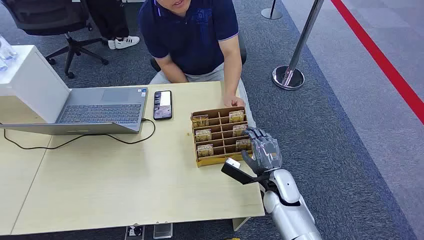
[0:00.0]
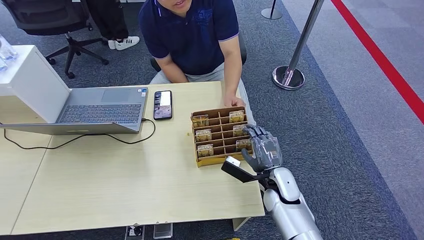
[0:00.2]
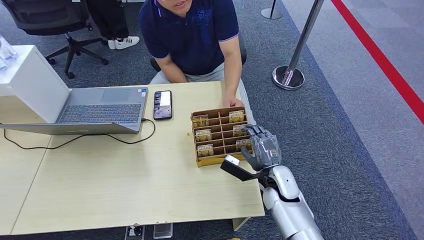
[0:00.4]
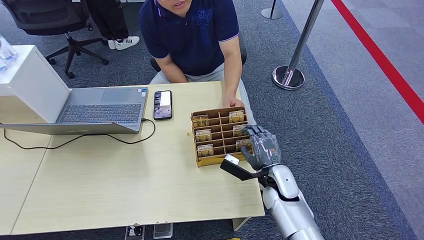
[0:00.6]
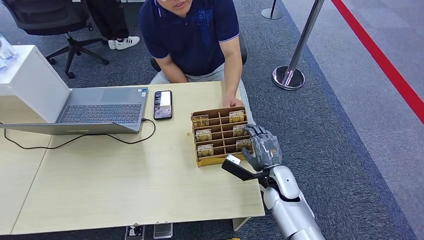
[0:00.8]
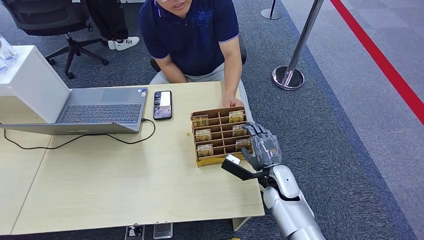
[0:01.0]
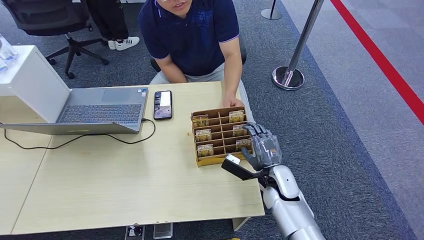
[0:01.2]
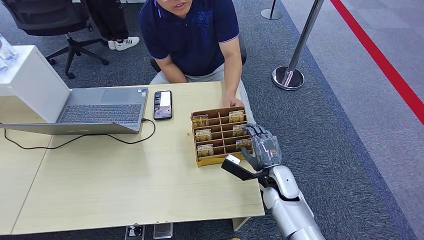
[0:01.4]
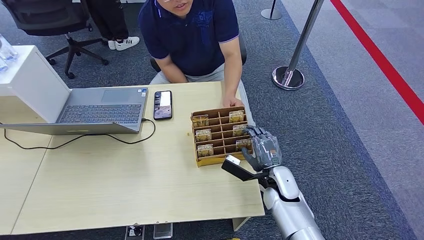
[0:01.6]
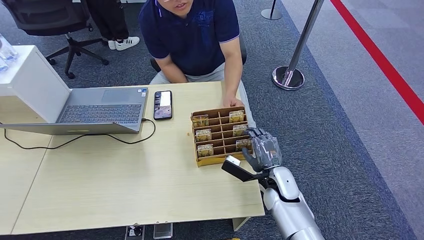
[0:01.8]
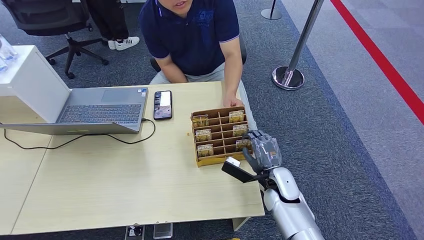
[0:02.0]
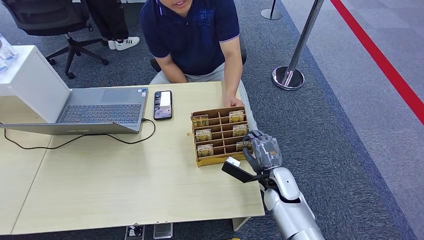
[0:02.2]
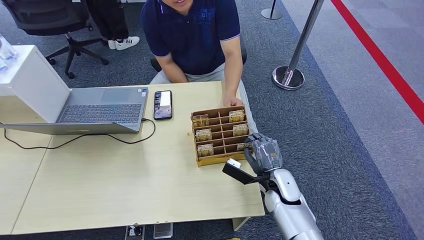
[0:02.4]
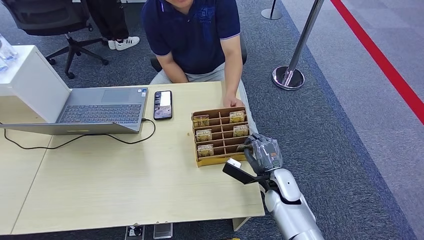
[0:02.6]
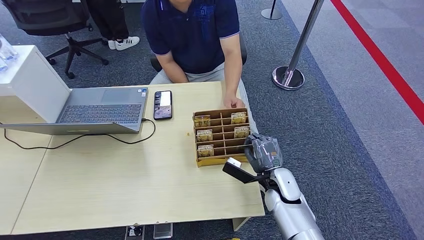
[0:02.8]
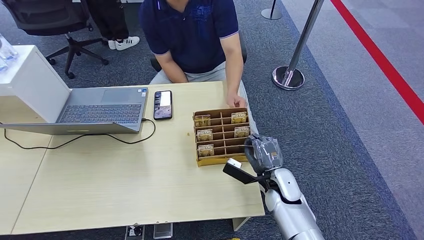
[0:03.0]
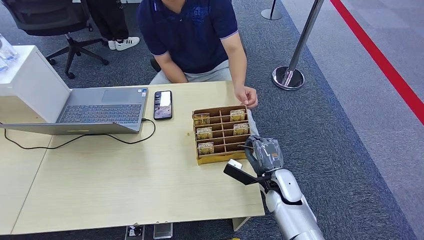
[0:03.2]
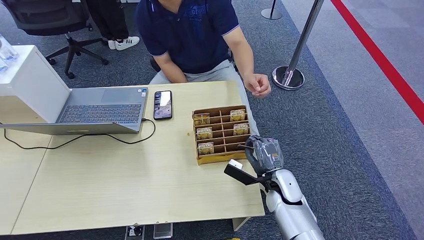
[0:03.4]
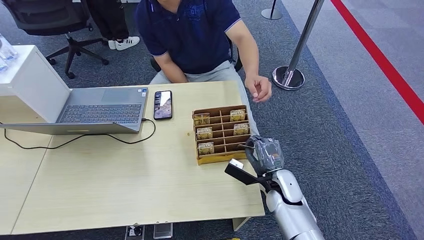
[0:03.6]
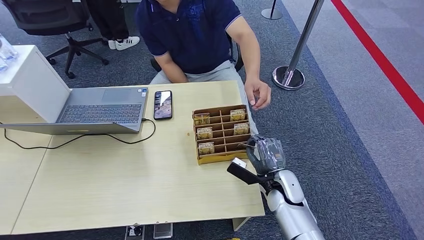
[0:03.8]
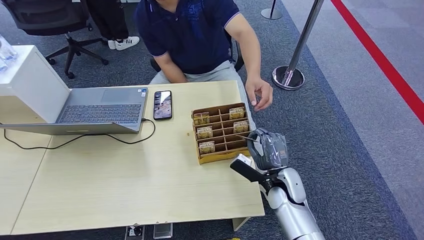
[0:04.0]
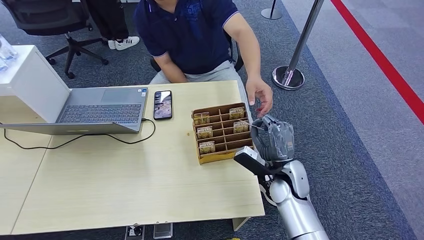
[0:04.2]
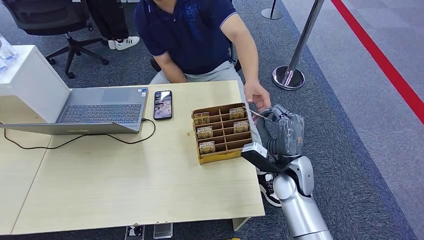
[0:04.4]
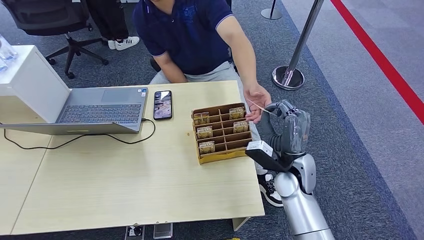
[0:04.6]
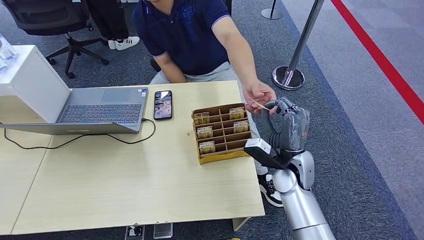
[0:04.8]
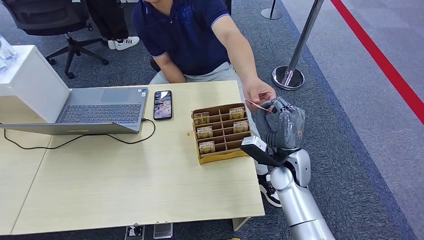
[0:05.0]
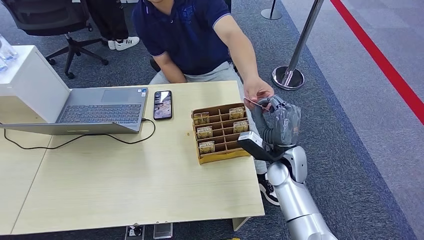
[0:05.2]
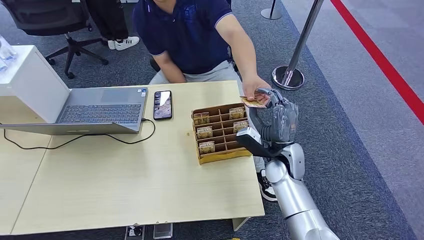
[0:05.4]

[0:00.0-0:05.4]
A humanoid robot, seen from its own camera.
Step, 0:00.0 to 0:04.2: Pick up the key card from the card box.
Step, 0:04.4 to 0:05.2: Hand the key card to the target.
0:01.4 to 0:04.0: The hands stay close to where they were, moving slightly.
0:04.0 to 0:05.4: The right hand shifts some 5 cm upward.

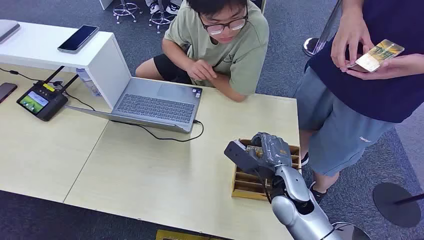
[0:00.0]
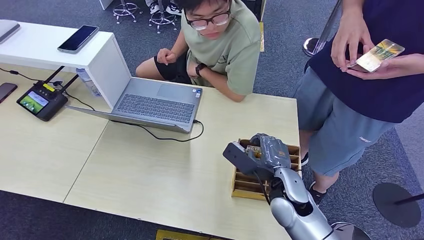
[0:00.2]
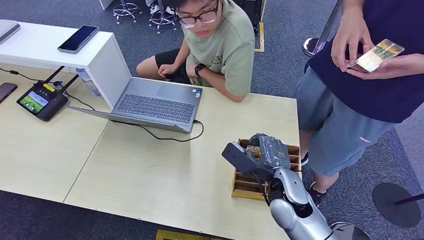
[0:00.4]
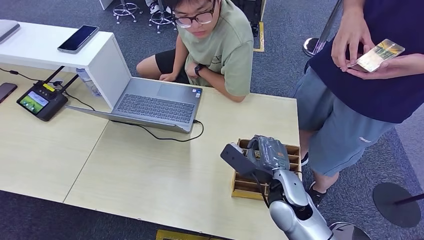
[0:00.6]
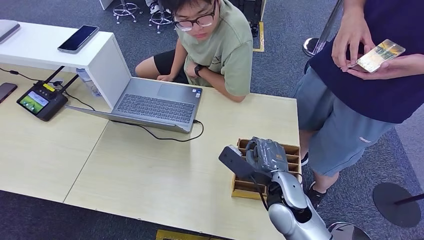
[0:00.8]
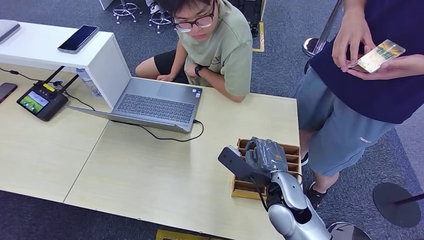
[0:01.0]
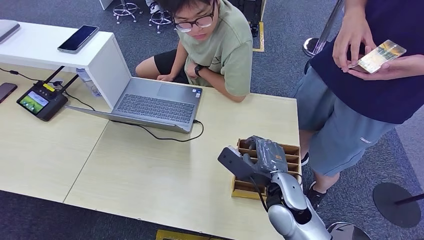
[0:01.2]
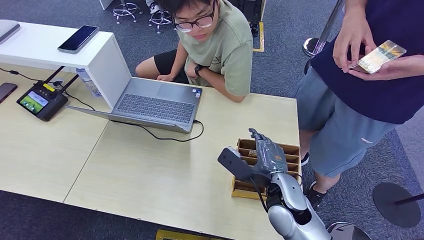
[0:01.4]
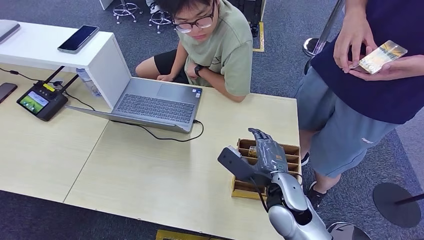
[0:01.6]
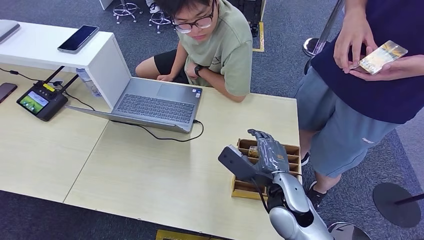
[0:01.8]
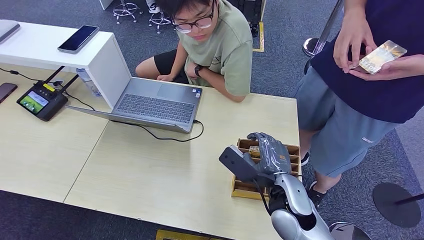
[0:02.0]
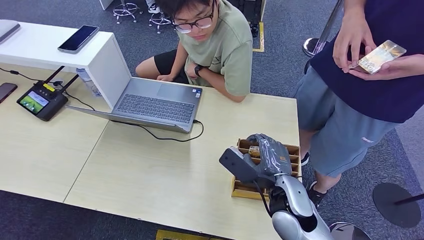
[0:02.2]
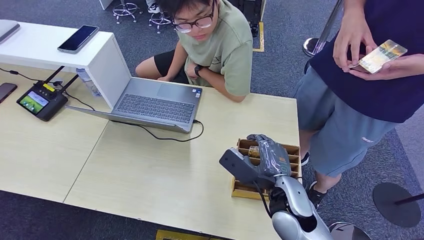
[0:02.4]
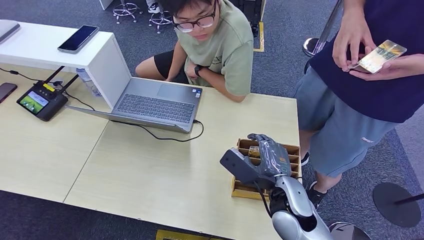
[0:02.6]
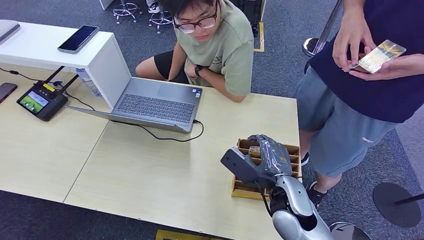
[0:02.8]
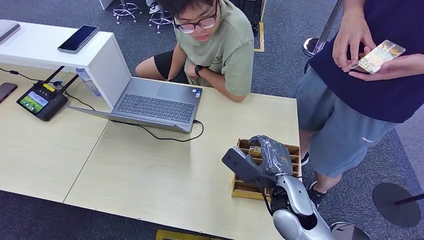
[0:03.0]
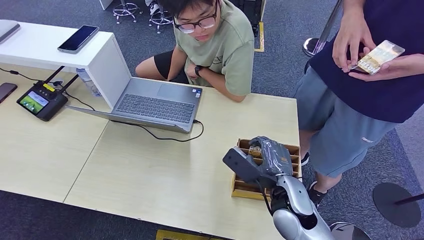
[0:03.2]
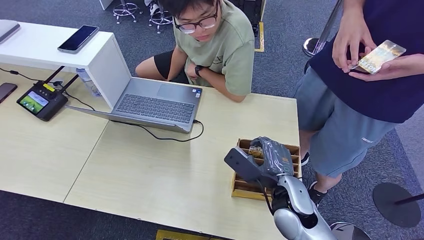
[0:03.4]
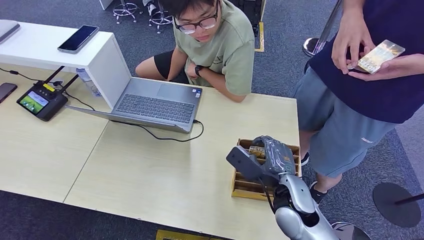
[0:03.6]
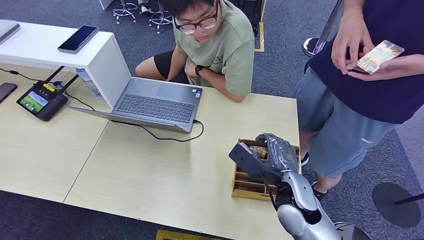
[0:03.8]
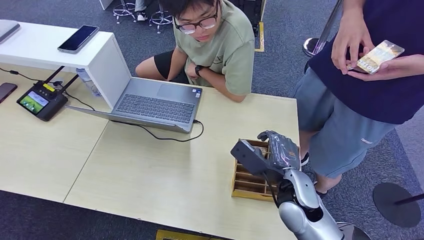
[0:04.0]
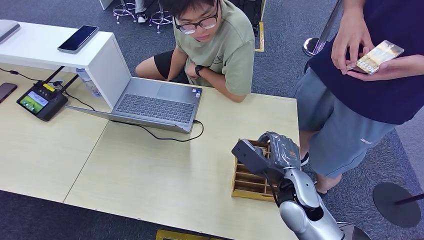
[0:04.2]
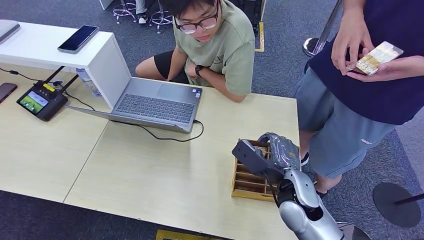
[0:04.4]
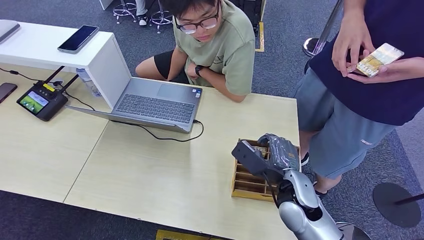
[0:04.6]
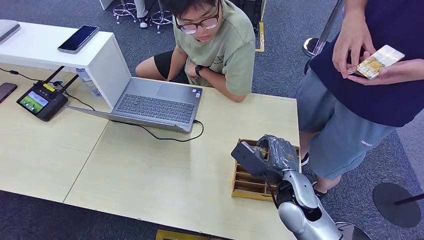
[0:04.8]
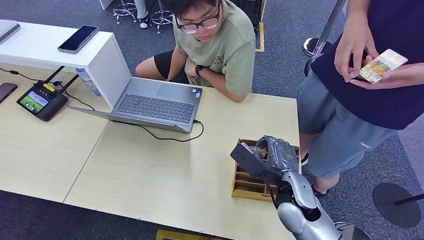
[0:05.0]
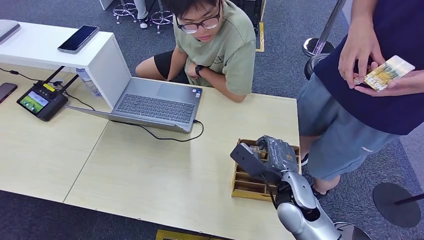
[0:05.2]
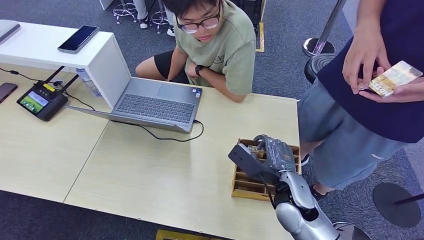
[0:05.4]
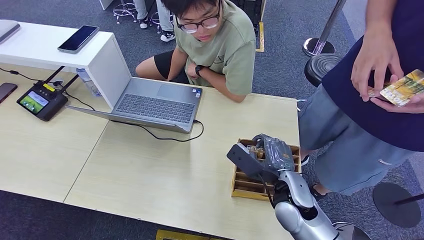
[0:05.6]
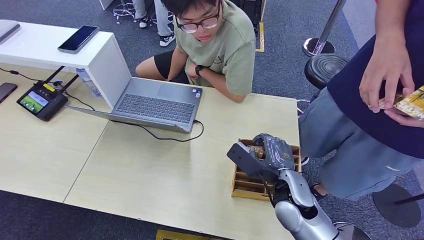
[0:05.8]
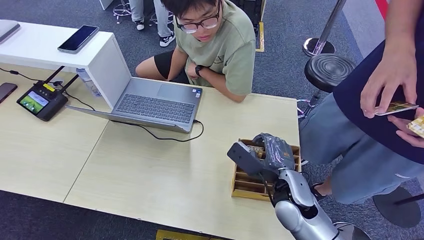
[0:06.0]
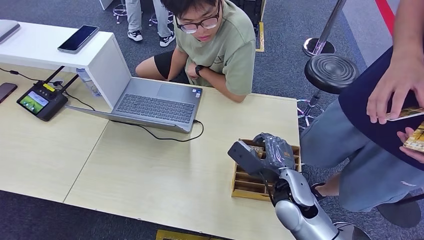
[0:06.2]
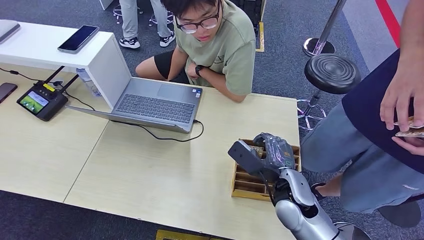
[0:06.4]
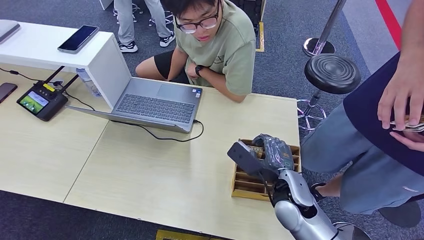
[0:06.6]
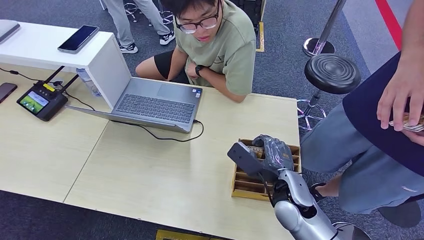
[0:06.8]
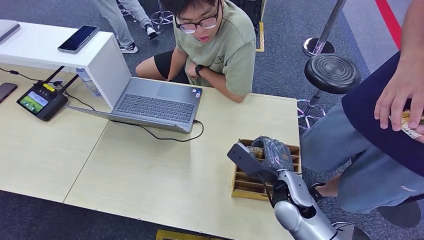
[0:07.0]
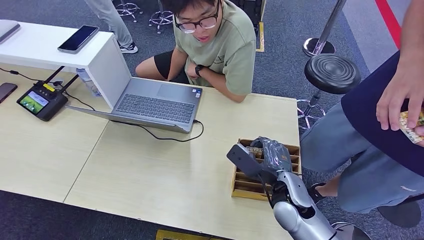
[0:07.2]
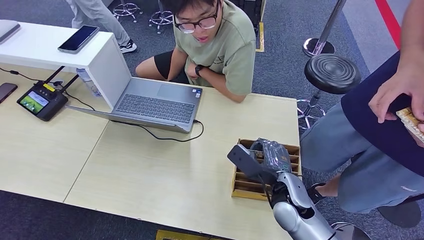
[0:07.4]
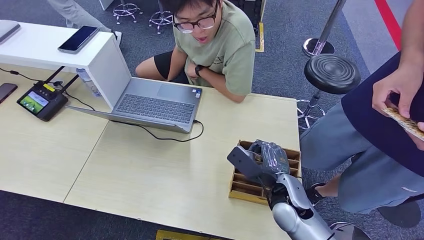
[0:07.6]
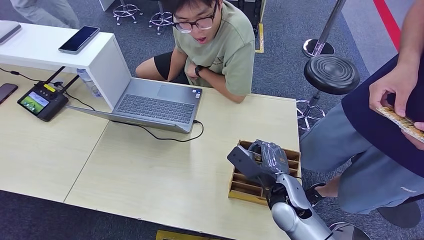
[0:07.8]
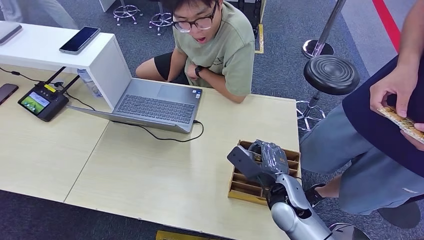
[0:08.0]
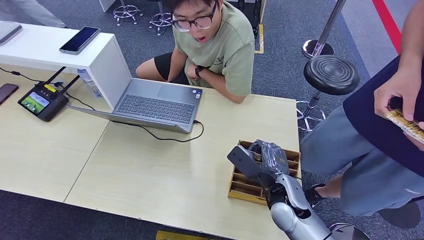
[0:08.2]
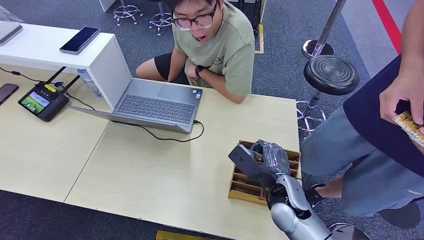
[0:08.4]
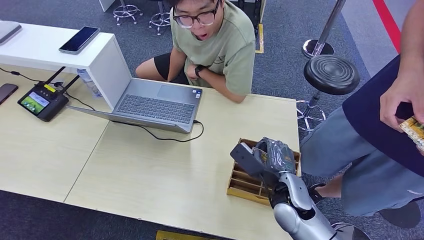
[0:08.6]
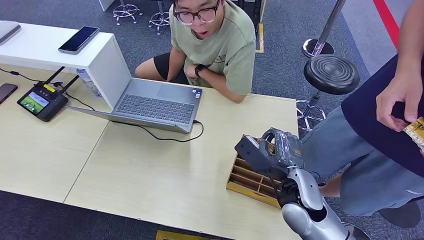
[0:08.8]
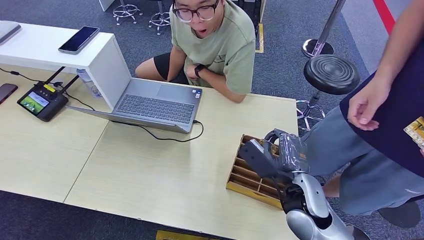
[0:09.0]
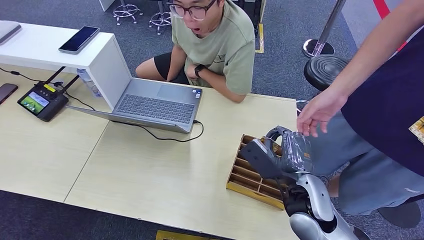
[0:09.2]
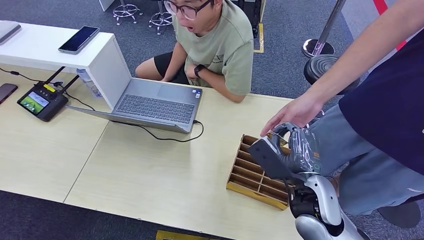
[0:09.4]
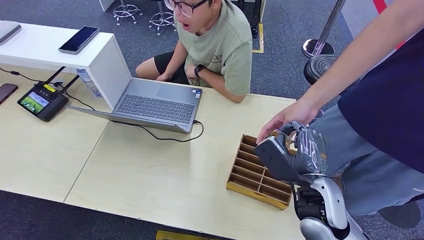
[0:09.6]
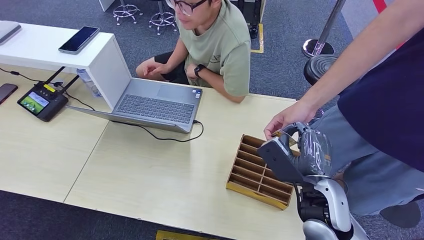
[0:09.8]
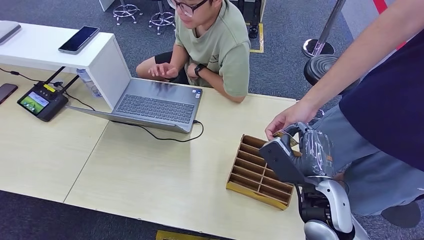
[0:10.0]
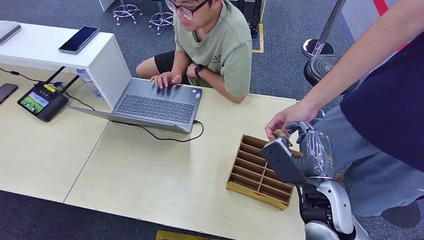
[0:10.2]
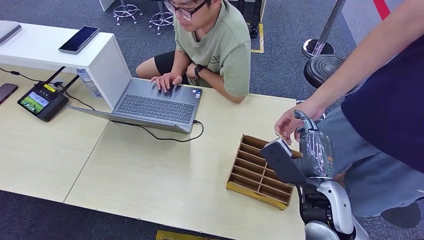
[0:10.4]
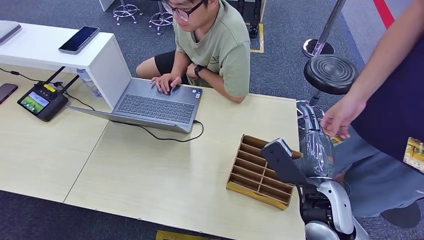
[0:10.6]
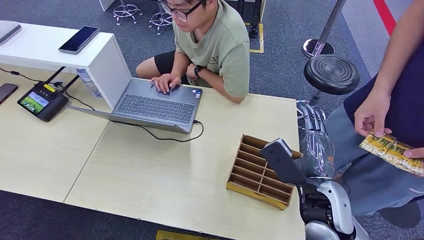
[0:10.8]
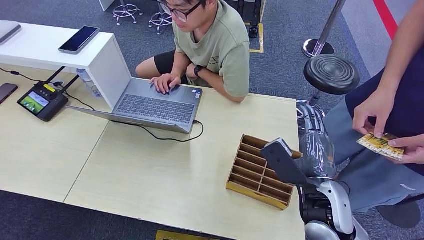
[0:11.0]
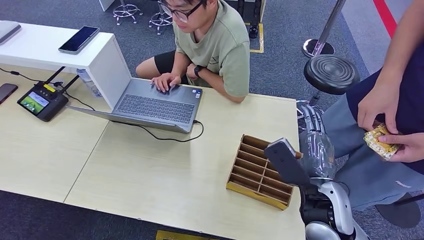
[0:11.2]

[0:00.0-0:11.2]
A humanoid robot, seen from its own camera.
Step, 0:00.0 to 0:09.8: Pick up the key card from the card box.
Step, 0:10.0 to 0:11.2: Hand the key card to the target.
0:01.6 to 0:04.8: The hands move only a little.
0:04.8 to 0:06.4: Neither hand changes place.
0:06.4 to 0:08.0: The hands stay close to where they were, moving slightly.
0:08.0 to 0:09.6: The right hand is displaced upward by about 10 cm.
0:09.6 to 0:11.2: Both hands stay about where they are.
